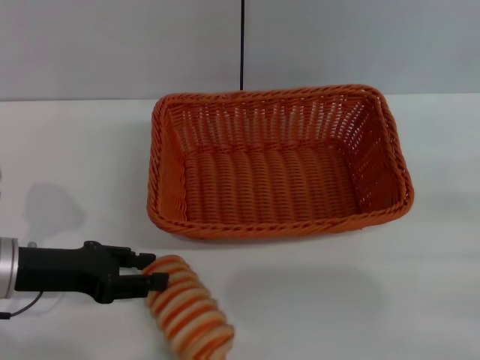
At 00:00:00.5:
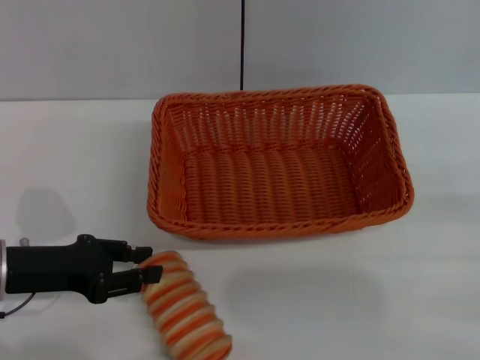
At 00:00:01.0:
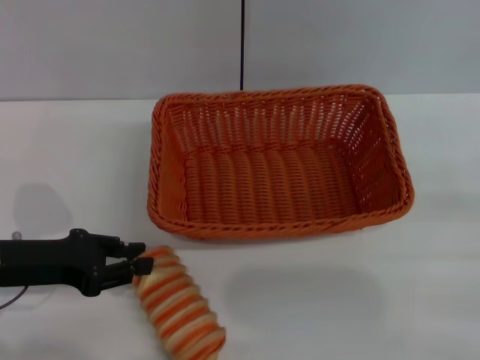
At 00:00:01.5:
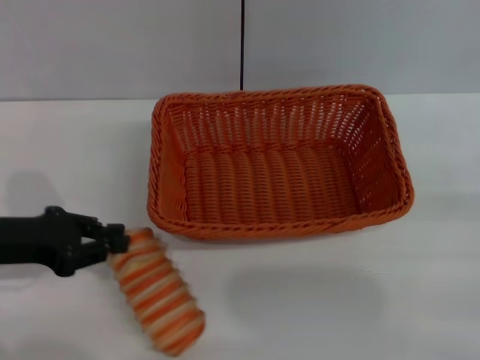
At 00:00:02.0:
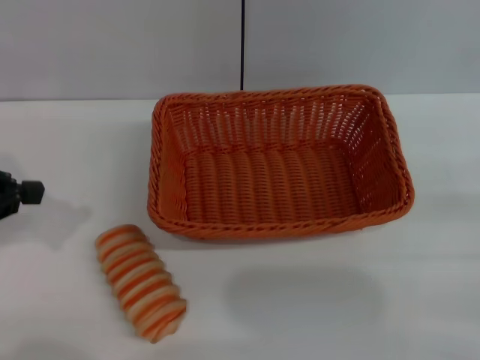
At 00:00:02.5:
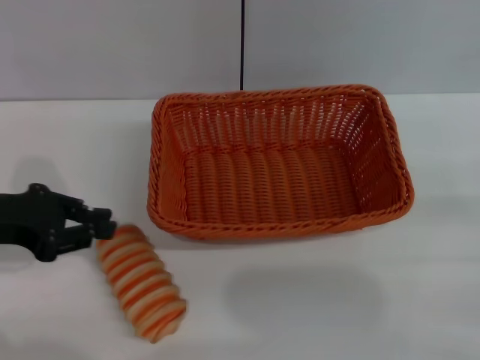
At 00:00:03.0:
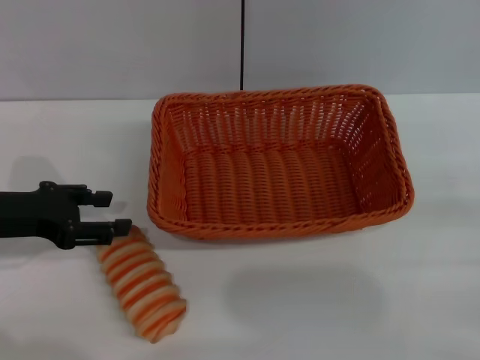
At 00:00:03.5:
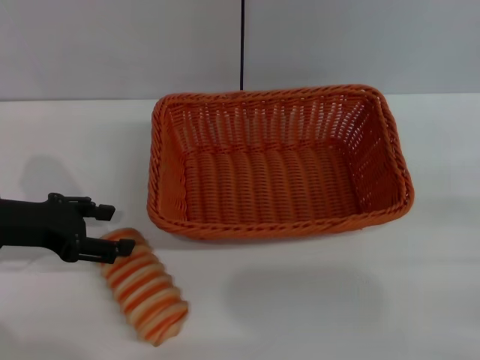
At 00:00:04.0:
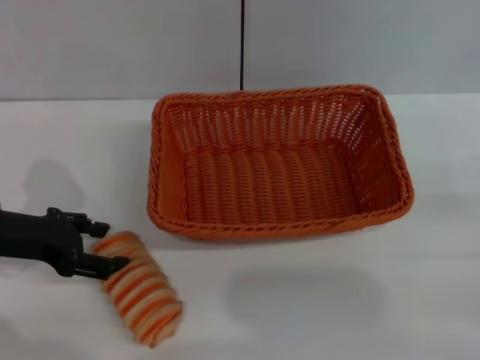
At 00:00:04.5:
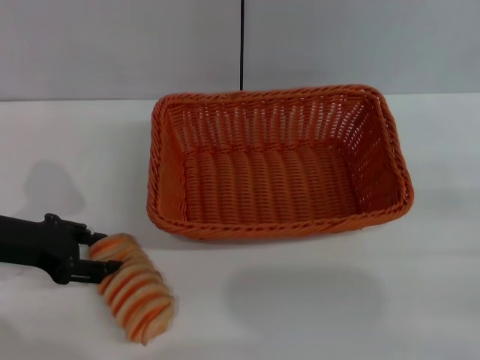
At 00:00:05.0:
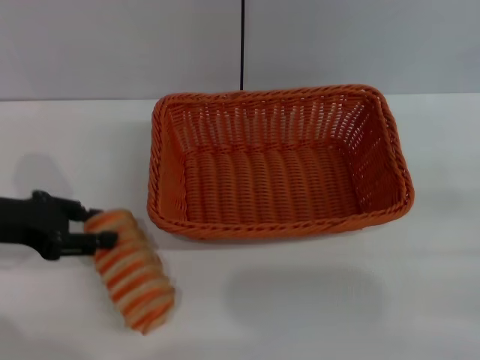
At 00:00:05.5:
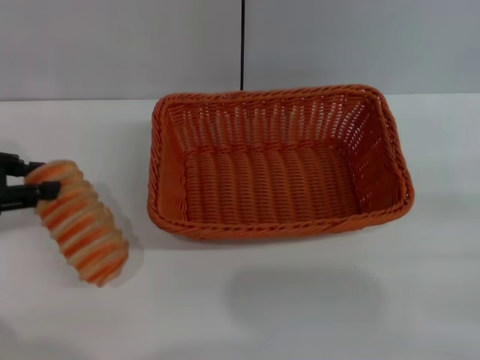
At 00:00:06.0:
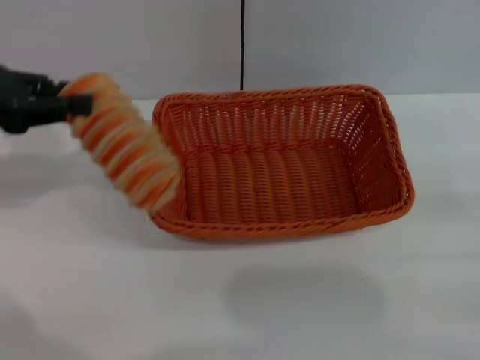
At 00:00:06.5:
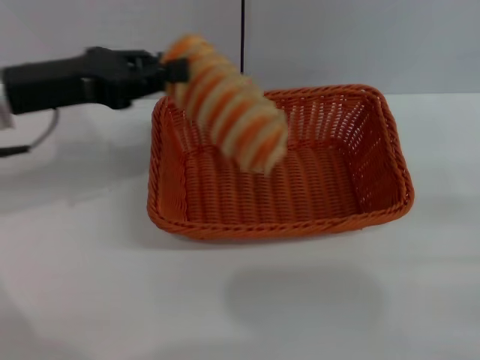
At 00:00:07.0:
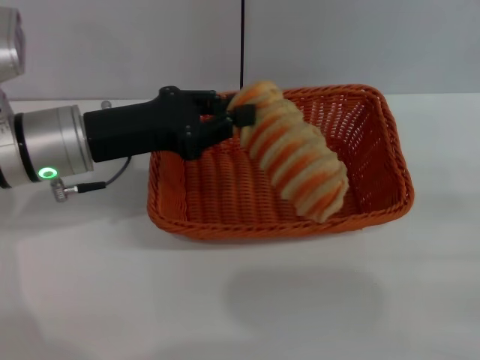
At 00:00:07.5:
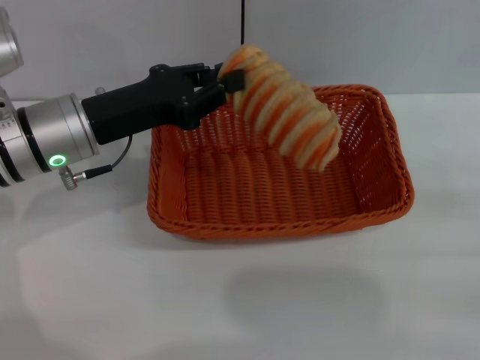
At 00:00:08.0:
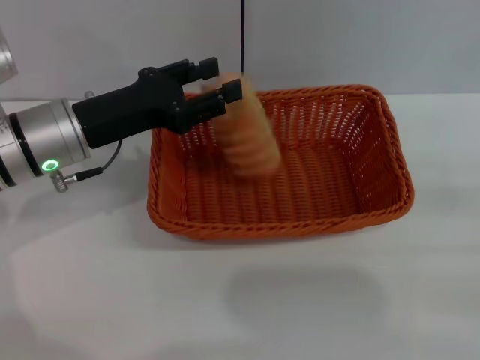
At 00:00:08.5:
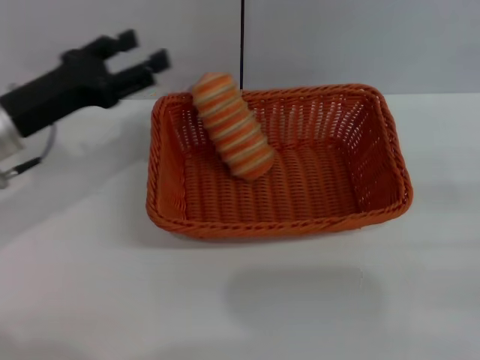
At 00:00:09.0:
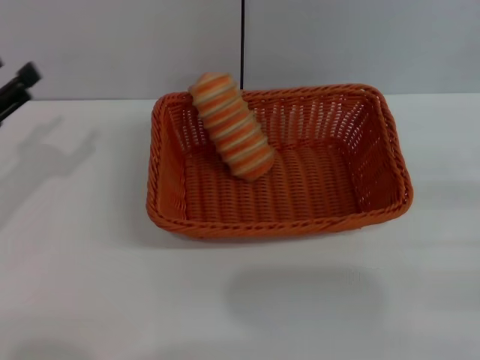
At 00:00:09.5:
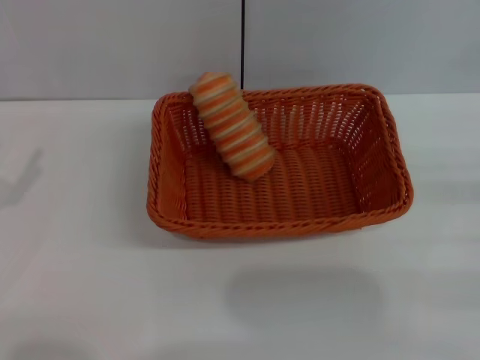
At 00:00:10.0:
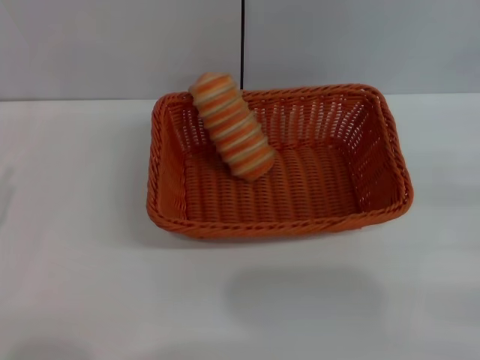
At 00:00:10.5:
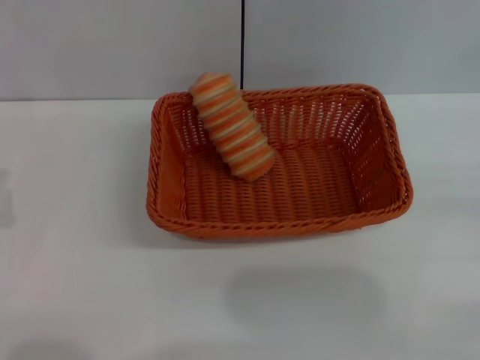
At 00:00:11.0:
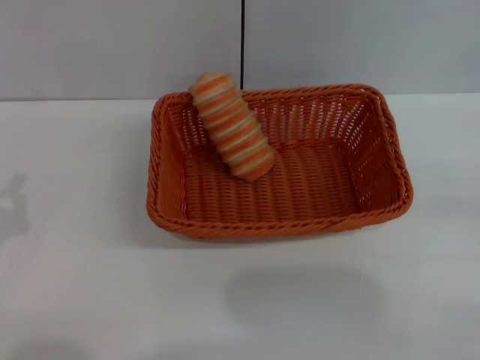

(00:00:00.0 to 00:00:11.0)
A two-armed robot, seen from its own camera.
Step, 00:00:00.0 - 00:00:05.5: Pick up the long bread with the left gripper.
Step, 00:00:06.0 - 00:00:08.0: Place the long bread into the light basket with the left gripper.
00:00:00.0 - 00:00:02.0: The left gripper goes approximately 15 cm upward and to the left, and closes.
00:00:02.0 - 00:00:03.5: The left gripper goes roughly 10 cm downward and to the right, and opens.
00:00:03.5 - 00:00:05.5: The left gripper travels upward and to the left by approximately 10 cm, and closes up.
00:00:05.5 - 00:00:07.5: The left gripper shifts roughly 15 cm to the right.
00:00:07.5 - 00:00:09.0: The left gripper shifts about 15 cm to the left and backward, and opens.
00:00:09.0 - 00:00:11.0: The left gripper moves backward, approximately 10 cm, and closes its fingers.
